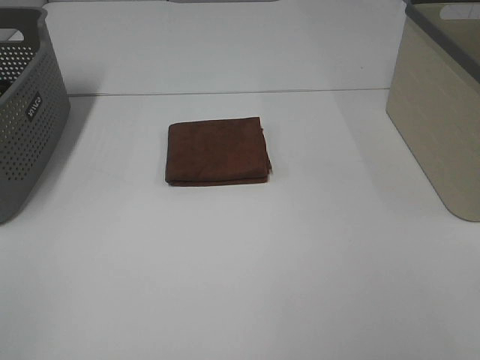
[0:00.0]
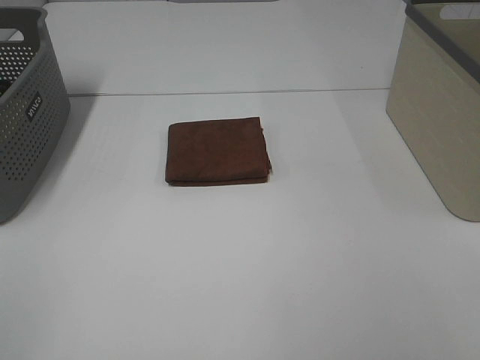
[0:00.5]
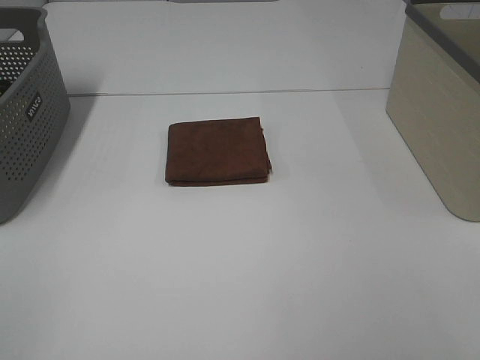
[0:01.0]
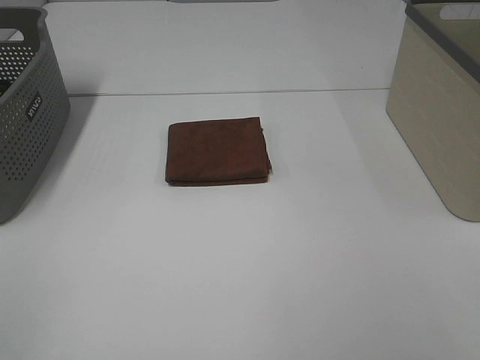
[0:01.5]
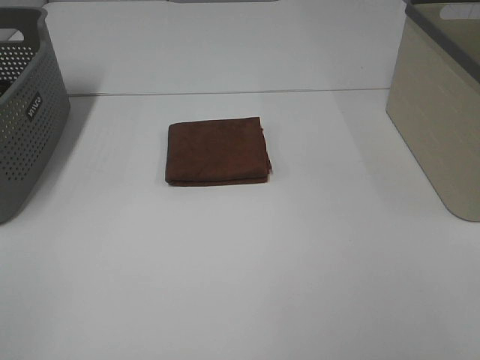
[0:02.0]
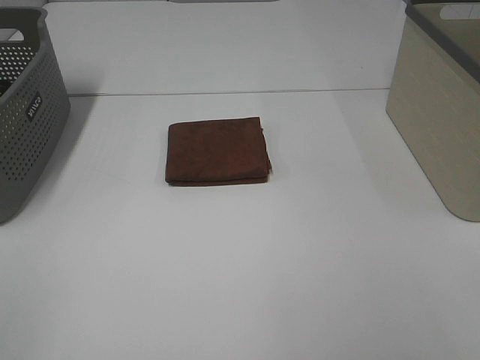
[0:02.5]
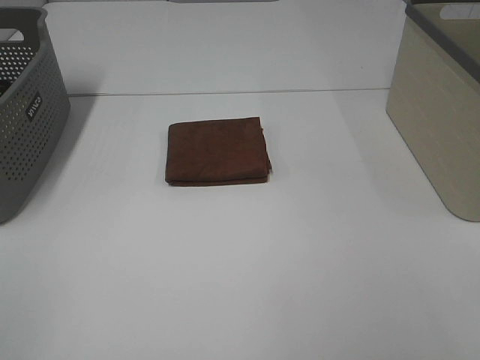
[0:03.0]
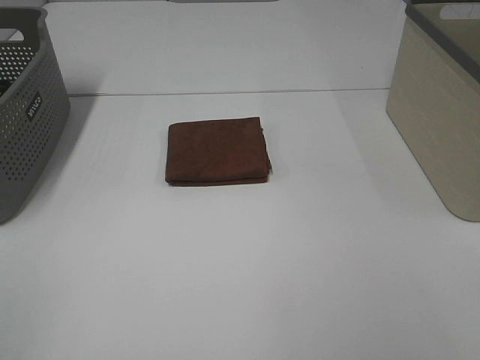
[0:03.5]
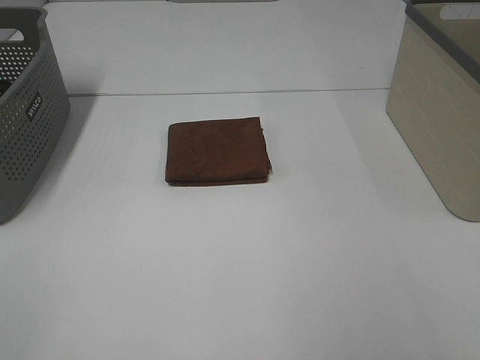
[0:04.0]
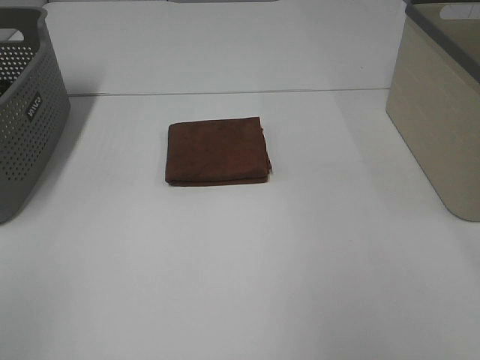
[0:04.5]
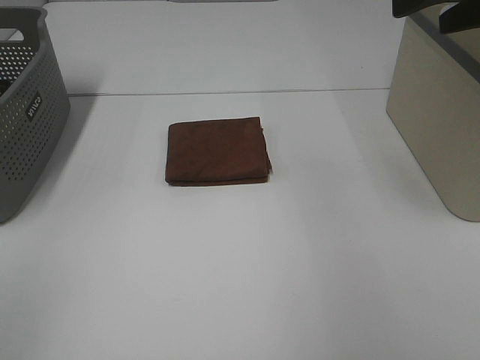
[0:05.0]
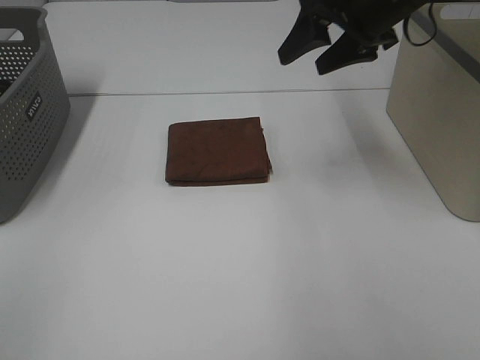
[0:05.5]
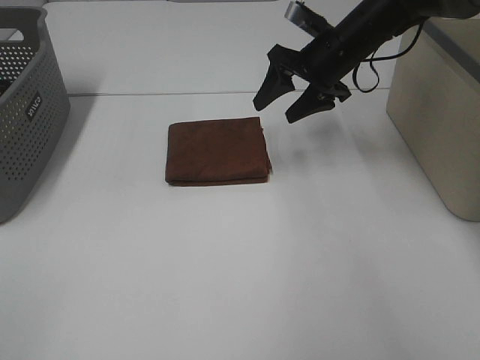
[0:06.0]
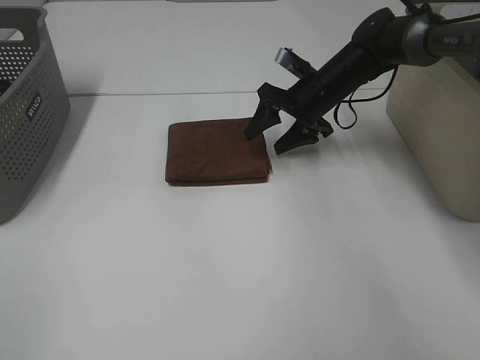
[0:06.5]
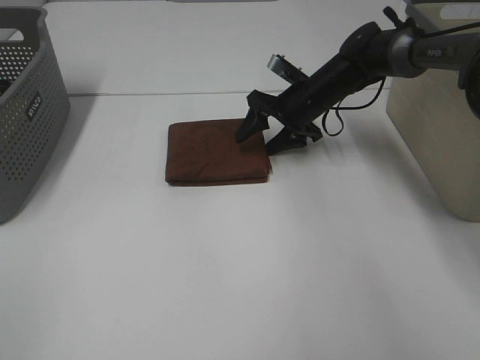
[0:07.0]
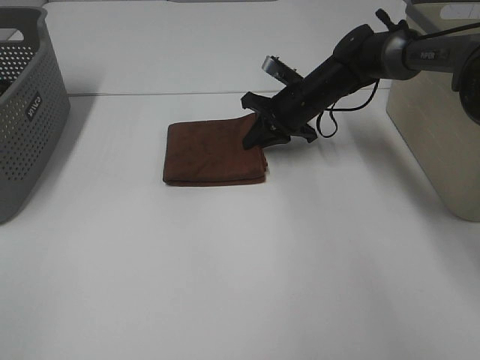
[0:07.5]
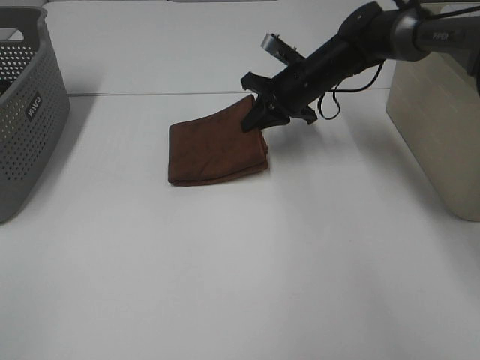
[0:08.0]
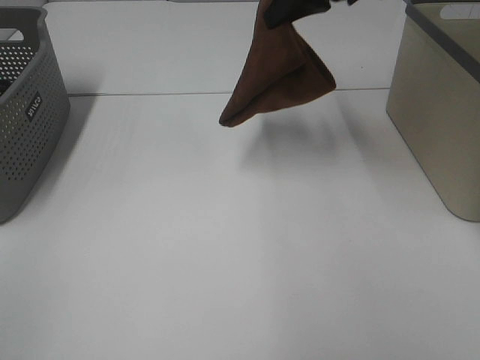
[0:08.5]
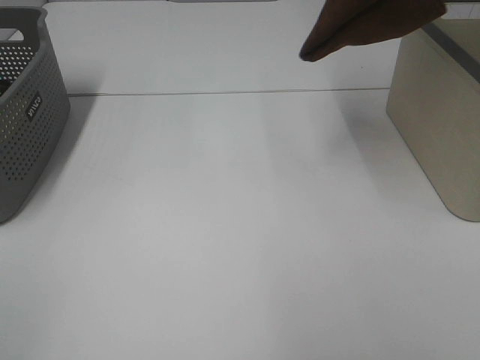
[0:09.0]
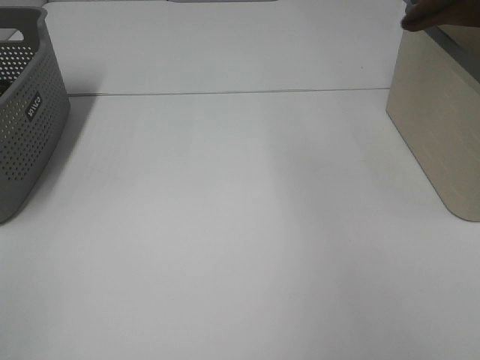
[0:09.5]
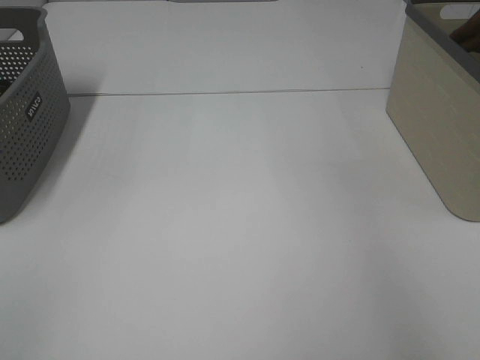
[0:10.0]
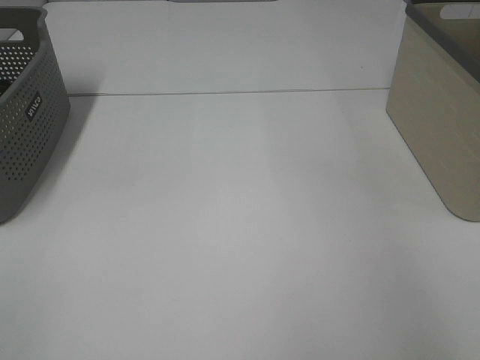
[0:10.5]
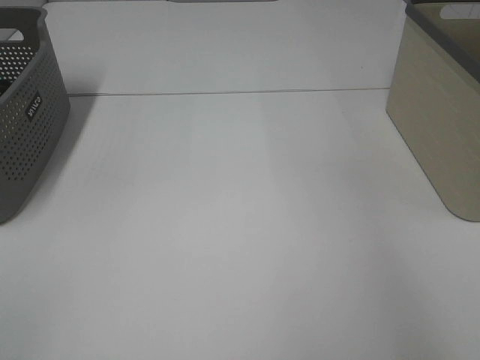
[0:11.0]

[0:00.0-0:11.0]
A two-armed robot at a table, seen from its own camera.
Step, 0:00.0 to 0:07.5: Right hand: grab the folded brown towel.
Step, 0:08.0 to 0:10.5: Right hand: place the brown towel in right basket.
0:00.0 to 0:03.5: Both grippers stay about where they are.
0:03.5 to 0:05.5: The right gripper moves forward, about 40 cm.
0:05.5 to 0:07.5: The right gripper moves downward and forward, some 20 cm, and closes its fingers.
0:07.5 to 0:09.0: The right gripper moves upward, about 35 cm.
0:09.0 to 0:11.0: The right gripper moves to the right, roughly 20 cm, and opens its fingers.

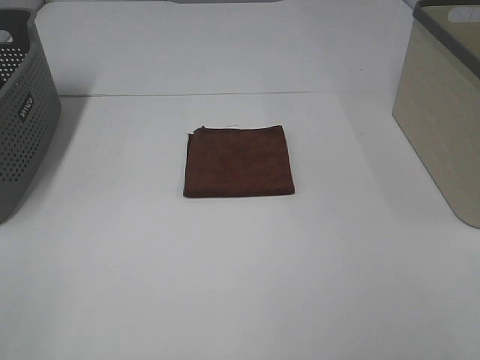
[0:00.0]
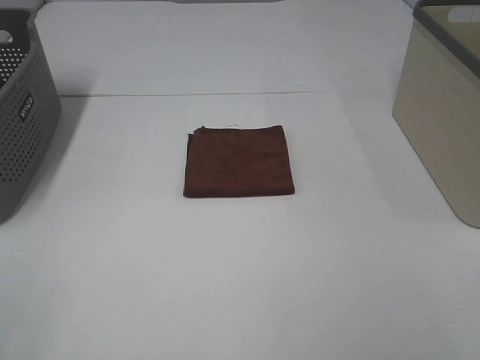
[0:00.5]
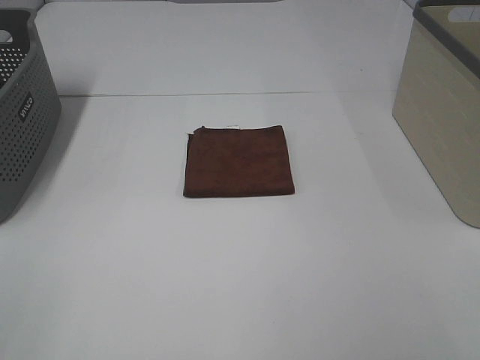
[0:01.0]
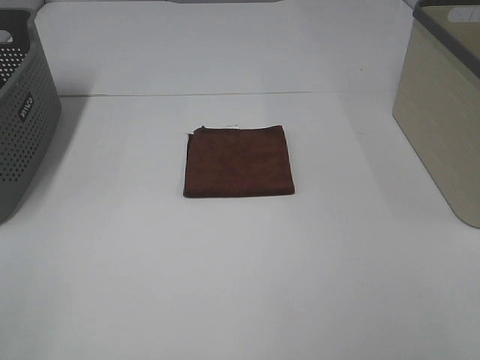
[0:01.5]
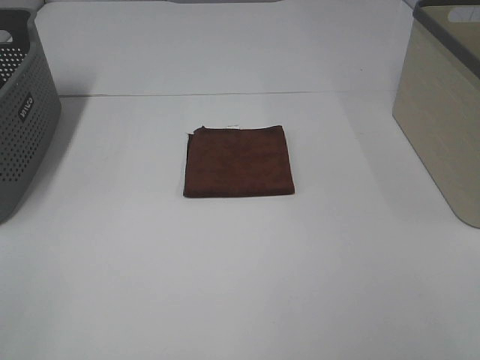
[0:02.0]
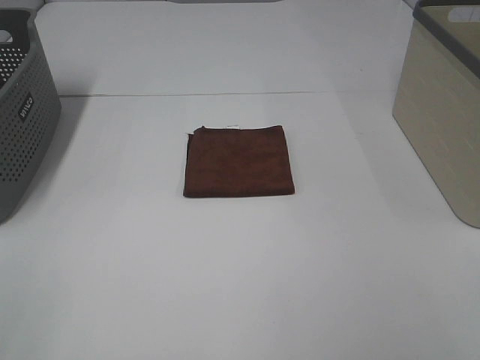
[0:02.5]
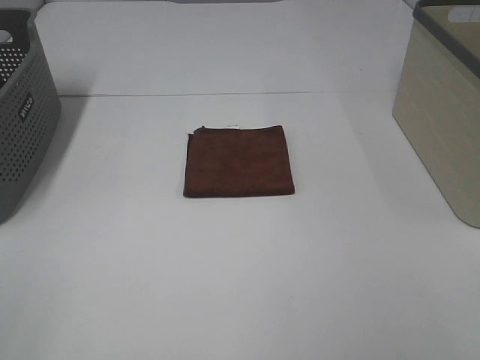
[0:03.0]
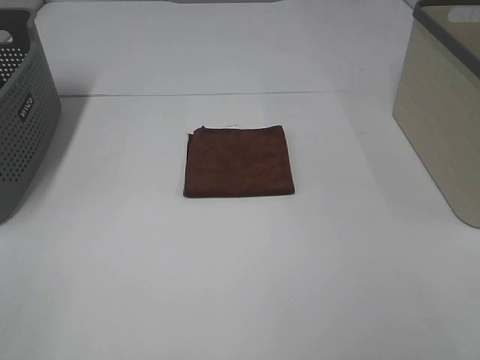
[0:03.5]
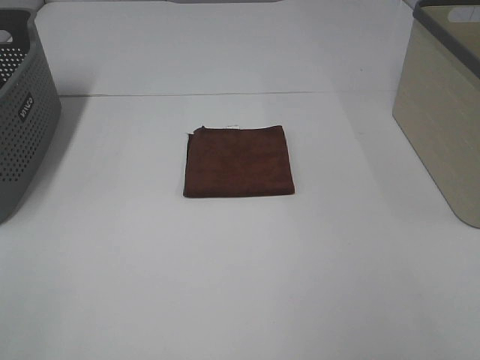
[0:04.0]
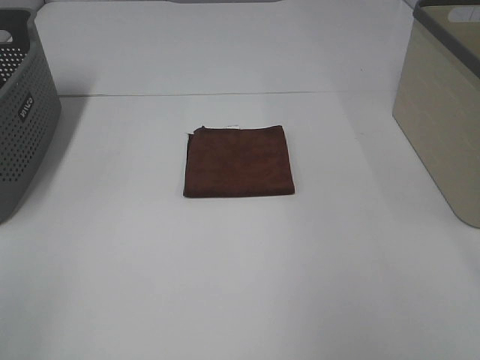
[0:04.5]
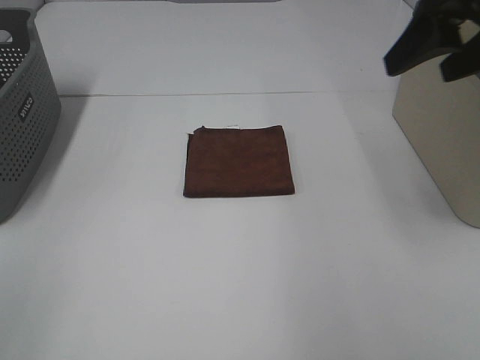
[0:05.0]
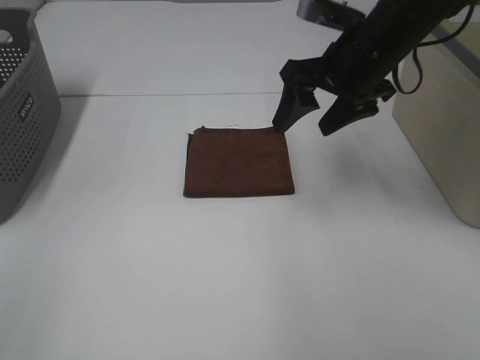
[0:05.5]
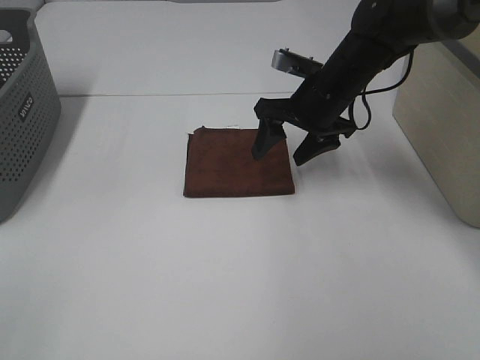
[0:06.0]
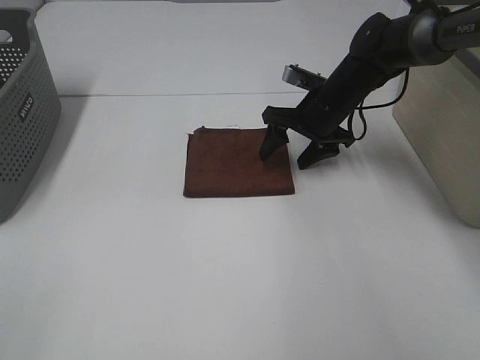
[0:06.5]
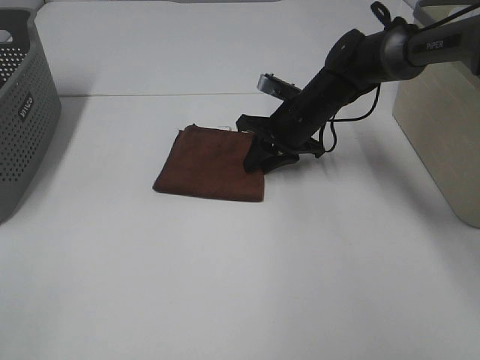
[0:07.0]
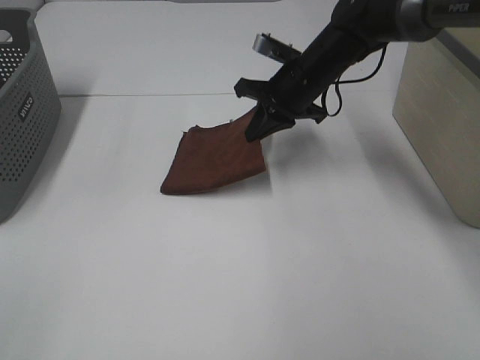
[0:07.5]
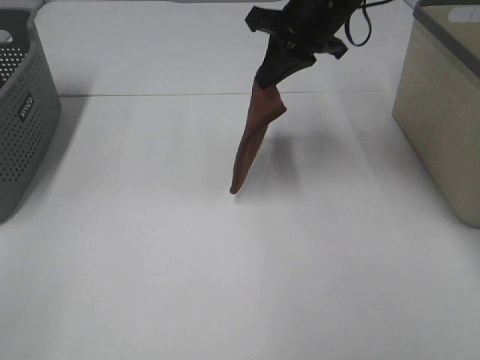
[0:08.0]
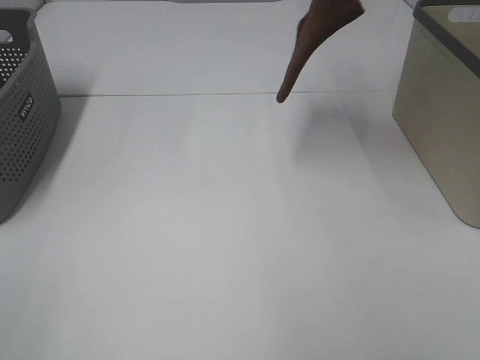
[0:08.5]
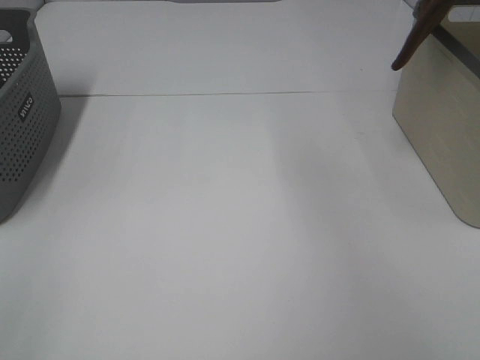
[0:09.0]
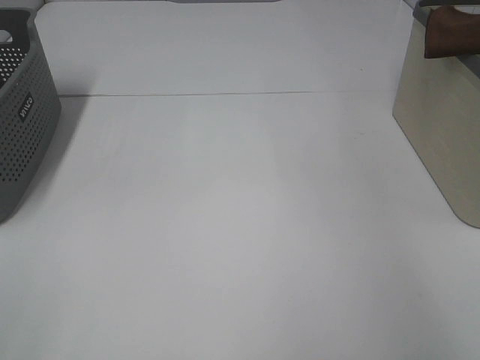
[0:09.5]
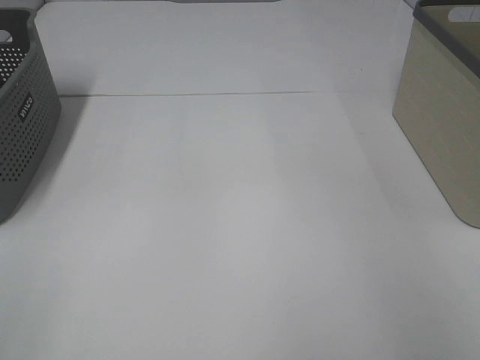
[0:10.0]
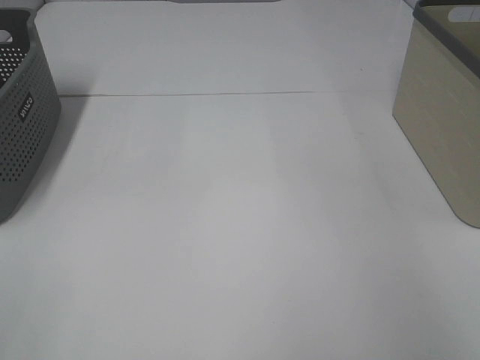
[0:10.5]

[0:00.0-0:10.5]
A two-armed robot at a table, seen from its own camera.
Step, 0:00.0 to 0:07.0: Right hand: grab the folded brown towel.
Step, 0:07.5 to 0:10.0: Right hand: place the brown towel in right basket.
0:00.0 to 0:02.0: Neither gripper changes place.
0:04.0 to 0:06.5: The right gripper heads forward and downward, covering about 50 cm.
0:06.5 to 0:08.5: The right gripper travels upward by about 30 cm, and closes up.
0:08.5 to 0:10.5: The right gripper moves to the right, some 25 cm, and opens.

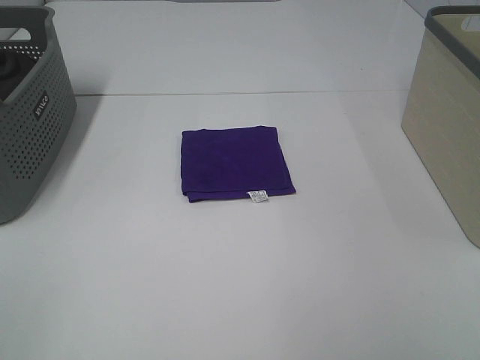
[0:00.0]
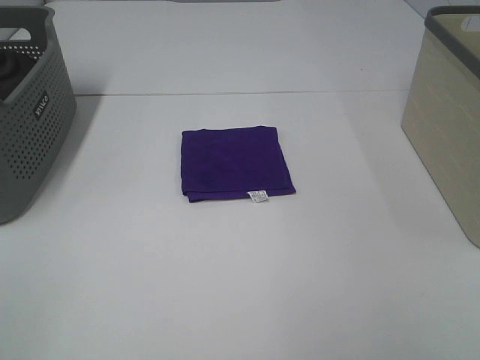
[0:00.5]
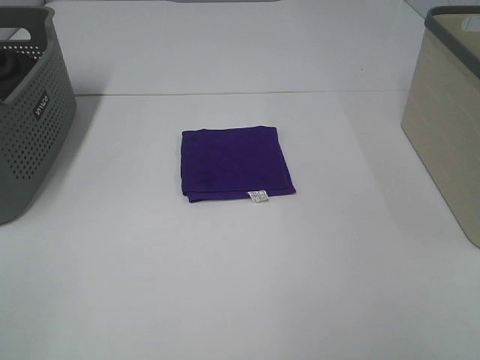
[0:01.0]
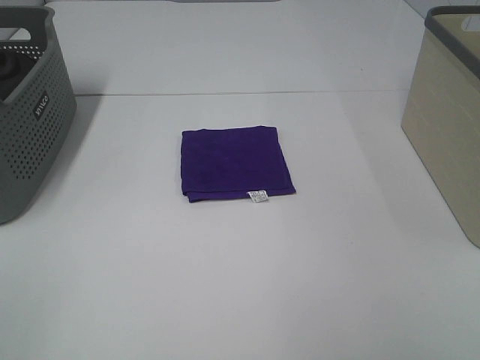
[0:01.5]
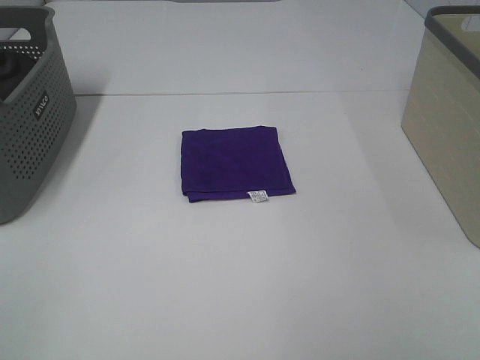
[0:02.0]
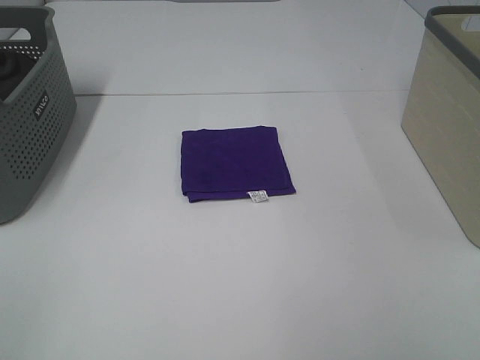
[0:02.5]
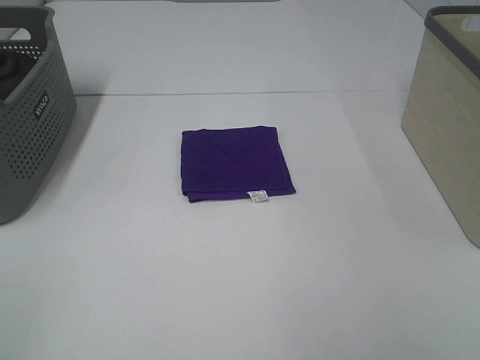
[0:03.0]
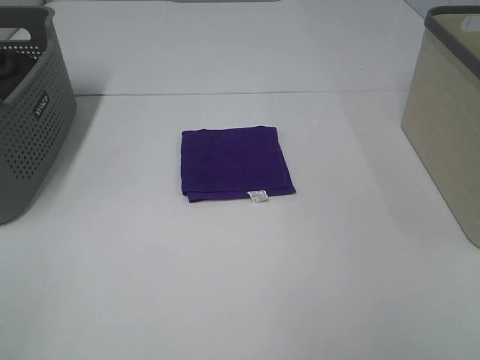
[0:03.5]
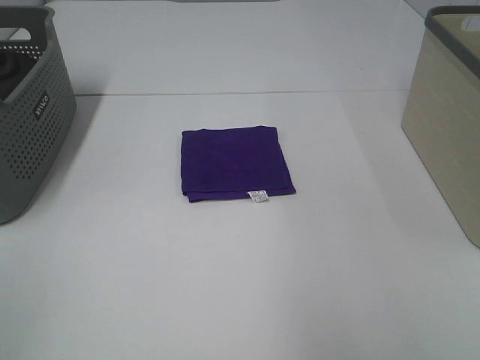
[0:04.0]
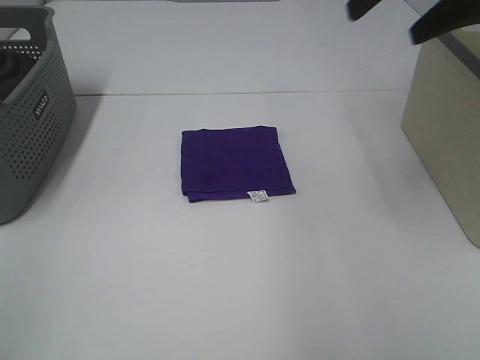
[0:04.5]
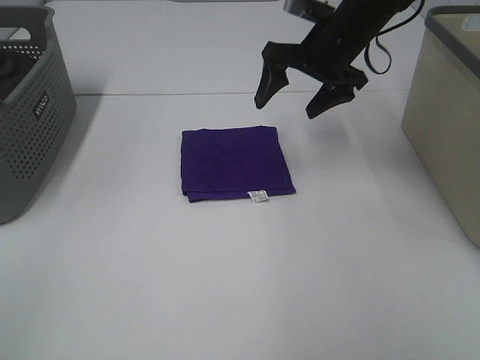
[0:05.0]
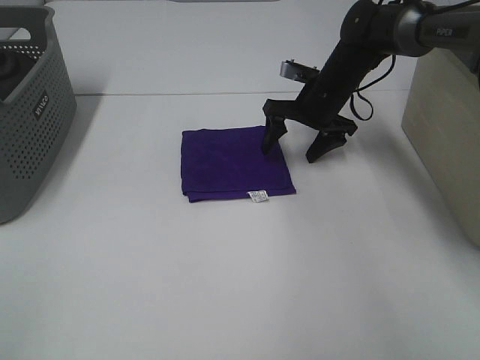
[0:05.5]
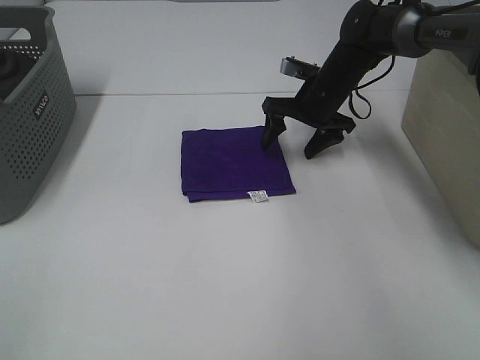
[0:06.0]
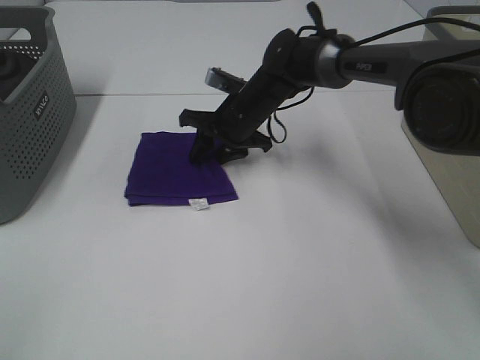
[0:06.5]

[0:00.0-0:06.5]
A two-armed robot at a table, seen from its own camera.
0:00.0 to 0:02.0: Neither gripper changes place.
0:02.0 to 0:04.5: The right gripper is displaced forward by approximately 35 cm.
0:04.5 to 0:06.5: The right gripper heads downward and to the left, covering roughly 30 cm, and closes up.
